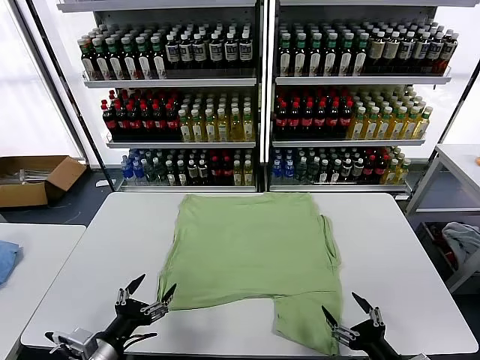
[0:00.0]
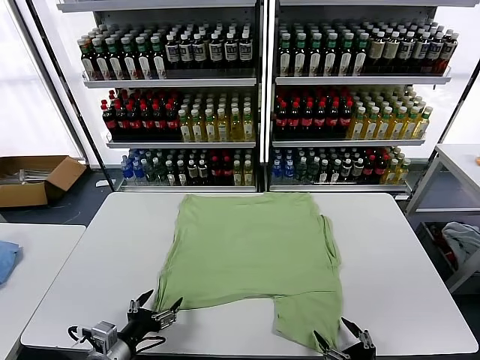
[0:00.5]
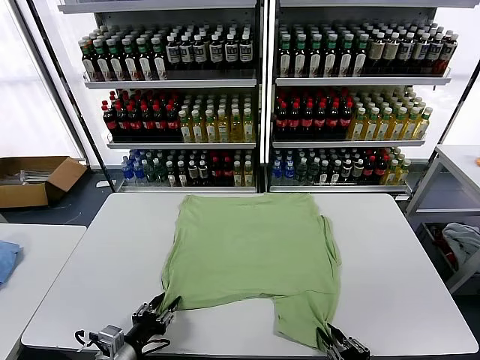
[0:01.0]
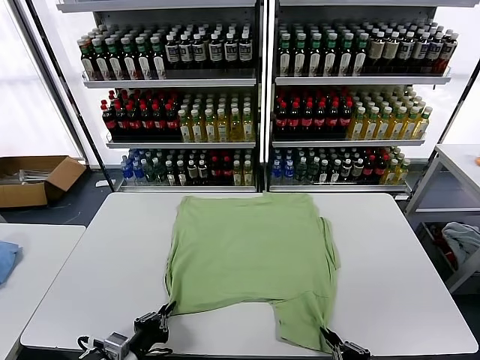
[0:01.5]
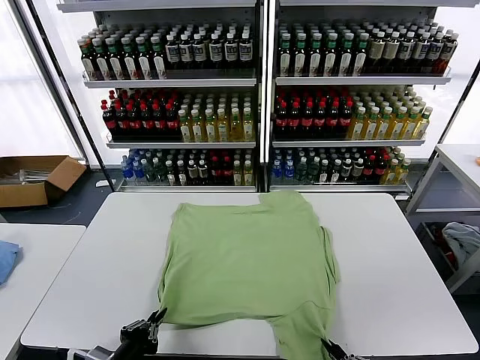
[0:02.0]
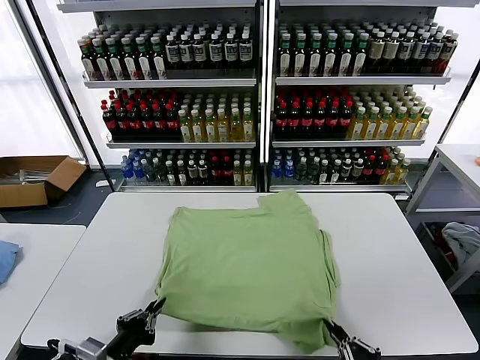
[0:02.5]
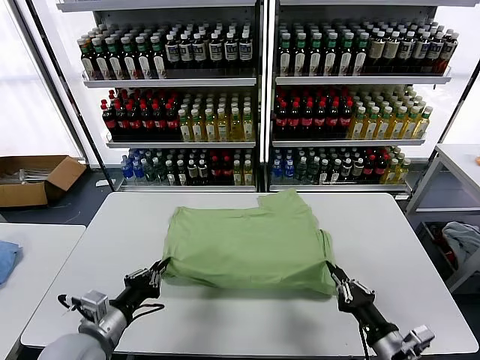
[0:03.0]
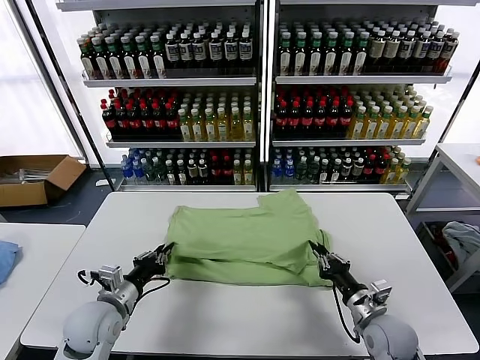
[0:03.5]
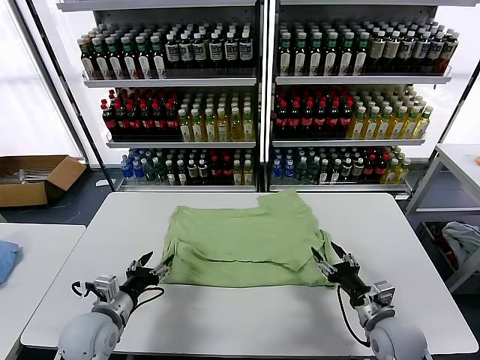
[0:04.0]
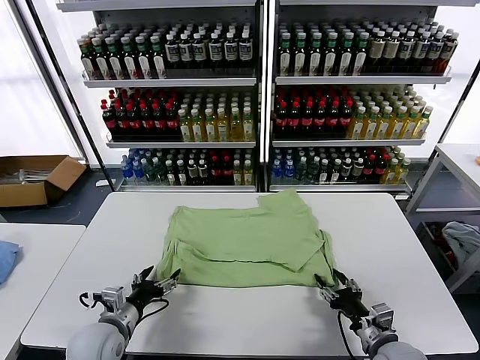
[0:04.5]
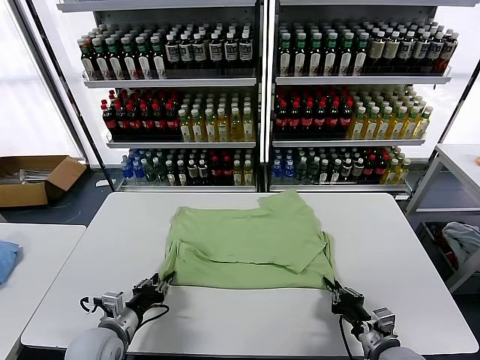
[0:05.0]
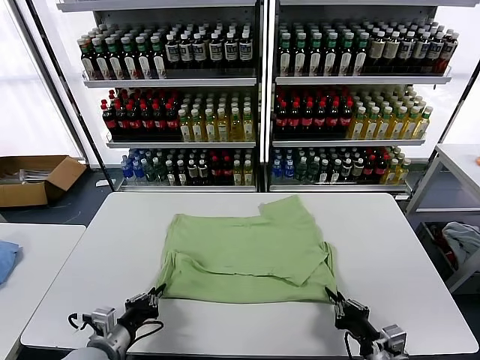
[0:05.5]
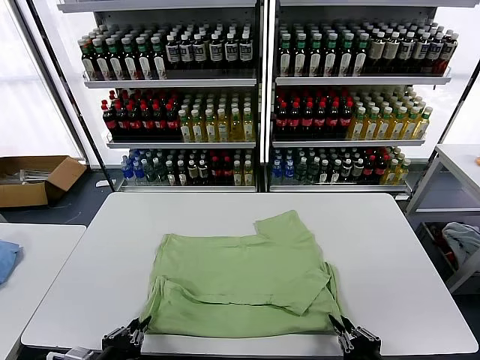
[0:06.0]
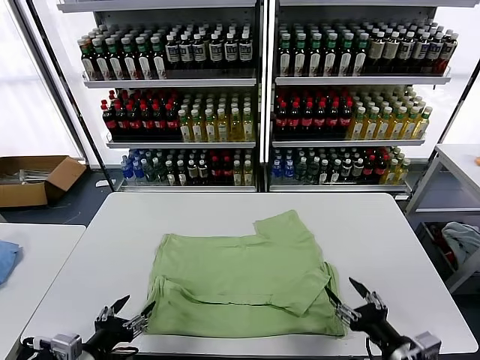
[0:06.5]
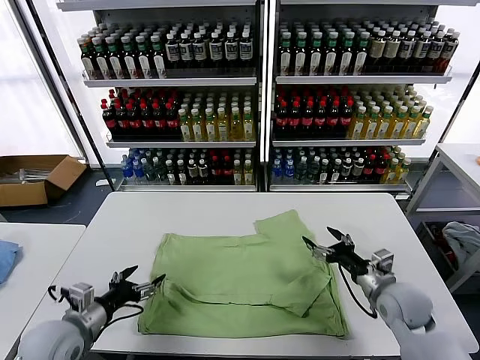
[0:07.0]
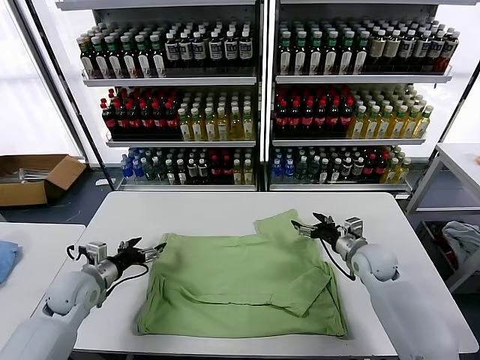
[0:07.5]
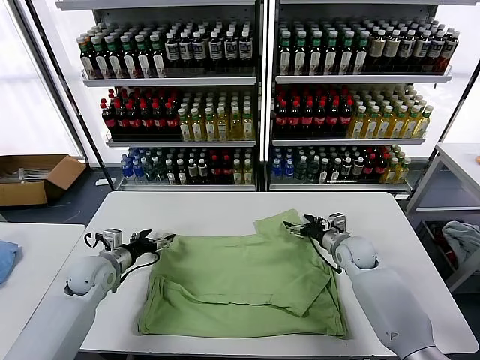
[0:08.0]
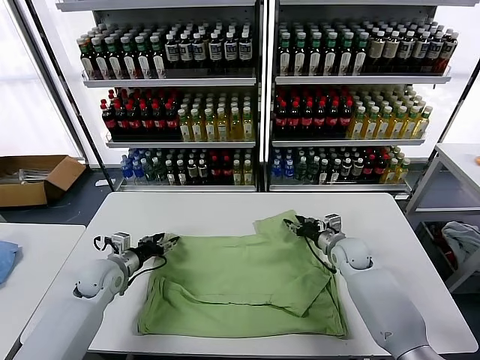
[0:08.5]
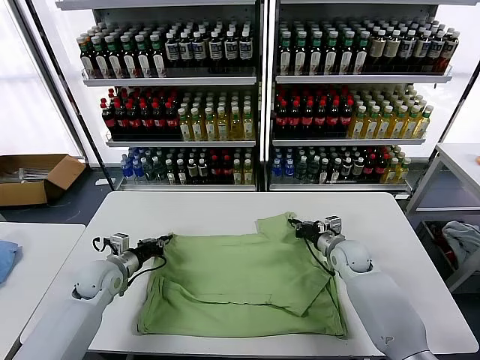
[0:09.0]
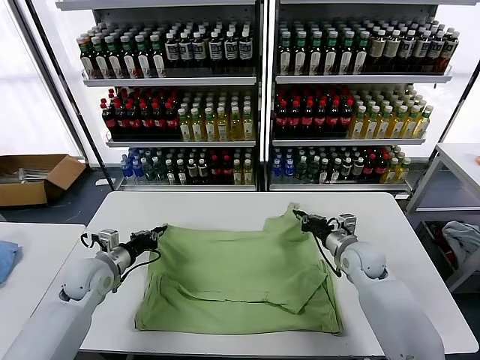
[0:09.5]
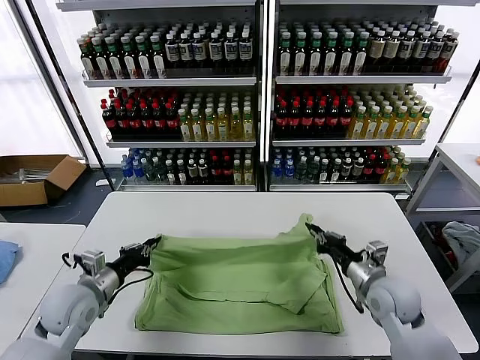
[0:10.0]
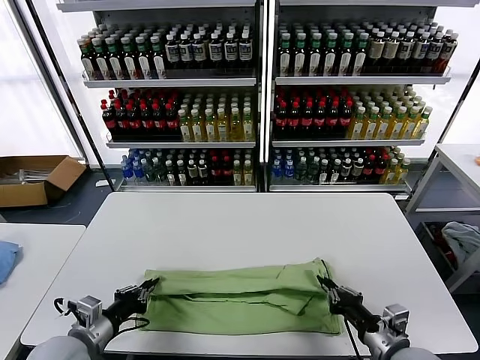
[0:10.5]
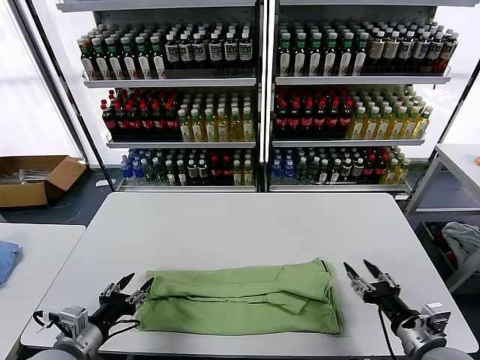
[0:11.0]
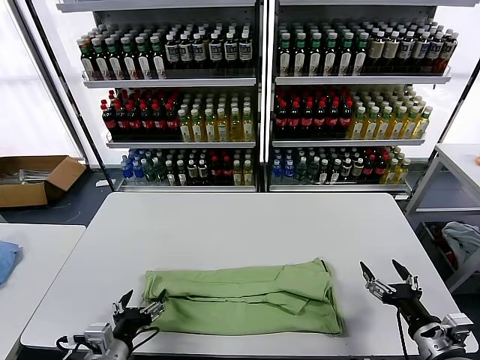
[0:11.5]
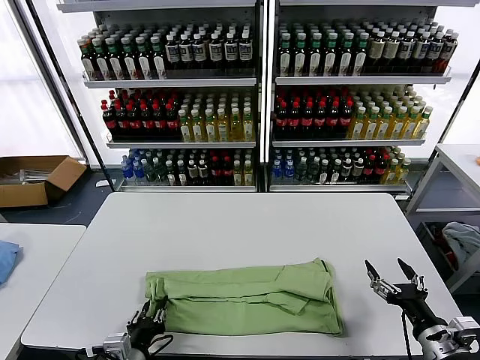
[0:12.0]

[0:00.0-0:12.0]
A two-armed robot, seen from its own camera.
Task of the whole recording: fold and organize the clothes.
Step, 0:00.0 to 0:01.0: use both grippers simultaneously to clamp the lower edge of the clothing fabric.
Step, 0:01.5 to 0:04.0: use both grippers to drag the lower edge of the fabric forward and fold it over the upper edge.
Step, 0:04.5 to 0:06.0: Drag the clothes downward with both gripper.
Step, 0:06.5 to 0:09.0: use both grippers simultaneously to clamp the upper edge of the clothing fabric.
Step, 0:09.5 to 0:10.5: use both grippers to drag the upper edge of the fabric backward and fold it over the lower edge.
0:02.0 to 0:04.0: The two grippers go roughly 20 cm forward. The right gripper opens. Meanwhile the left gripper opens up.
0:04.0 to 0:06.0: The two grippers go about 15 cm backward. The left gripper closes. The right gripper closes.
0:06.0 to 0:08.0: Both grippers travel together forward, approximately 35 cm. The left gripper opens up, while the right gripper opens its fingers.
0:08.0 to 0:10.0: The left gripper heads backward, covering roughly 10 cm, and closes, while the right gripper goes some 15 cm backward, and closes up.
0:10.0 to 0:12.0: The right gripper is displaced backward and to the right by about 15 cm, and opens up. Meanwhile the left gripper moves backward, to the right and downward, some 20 cm, and opens up.

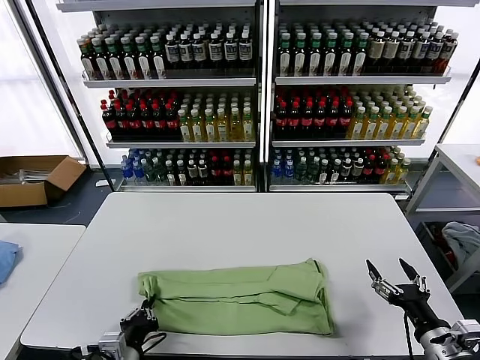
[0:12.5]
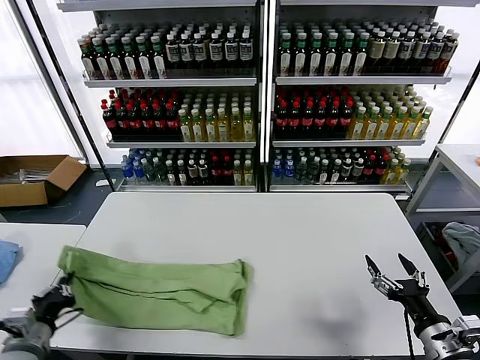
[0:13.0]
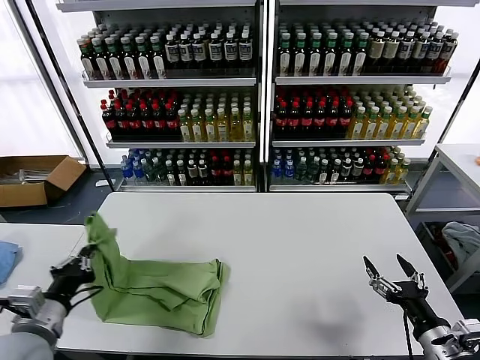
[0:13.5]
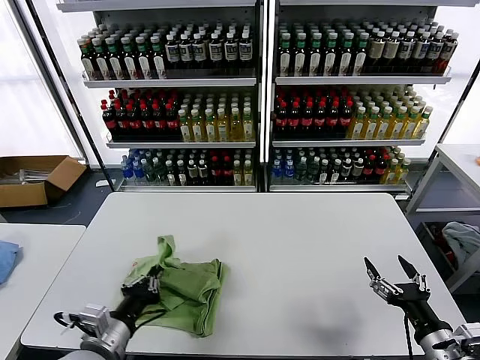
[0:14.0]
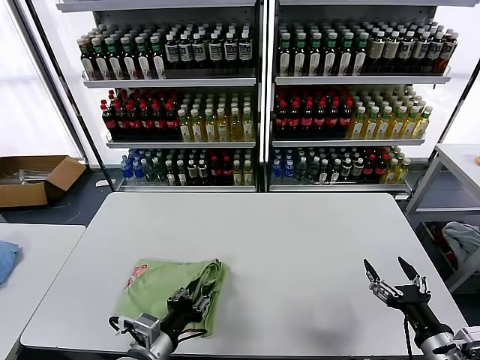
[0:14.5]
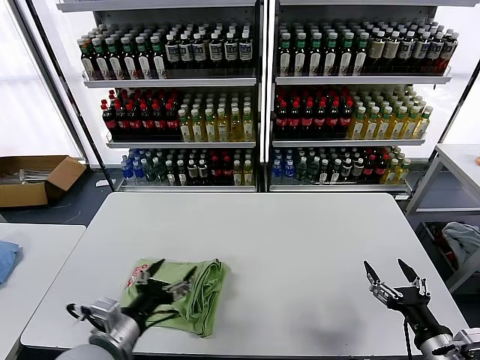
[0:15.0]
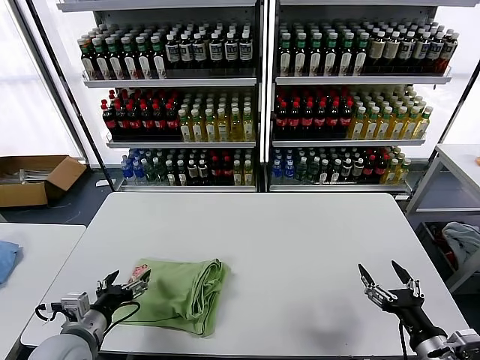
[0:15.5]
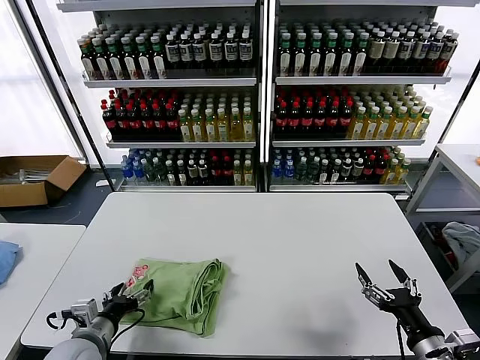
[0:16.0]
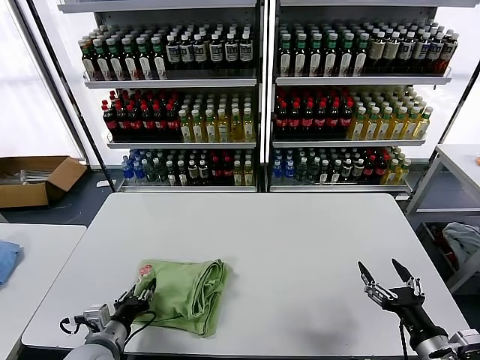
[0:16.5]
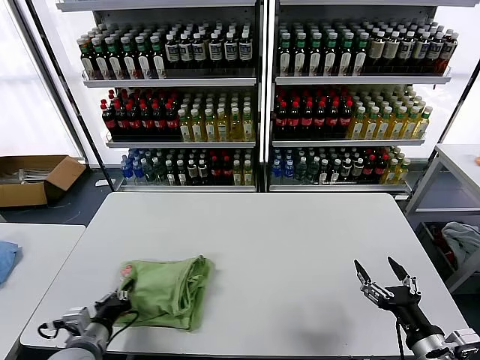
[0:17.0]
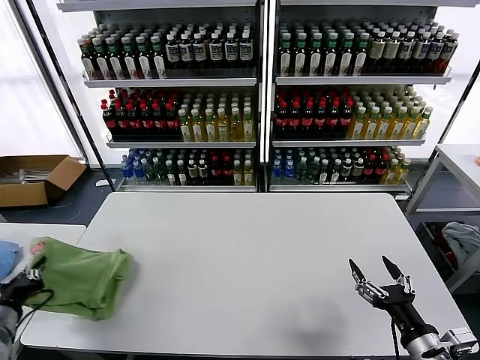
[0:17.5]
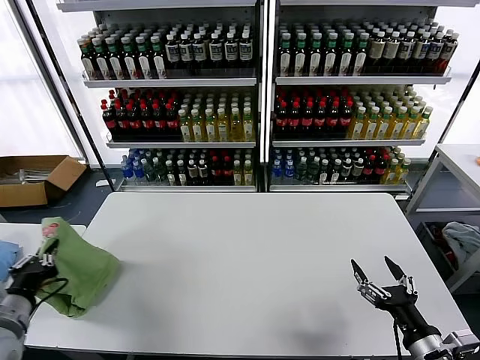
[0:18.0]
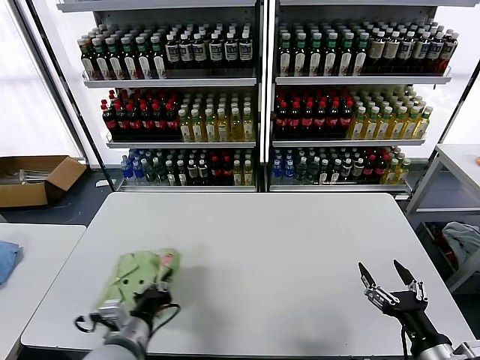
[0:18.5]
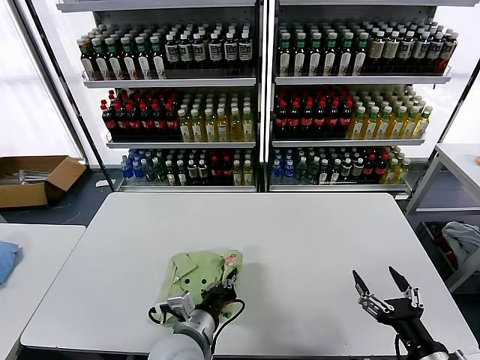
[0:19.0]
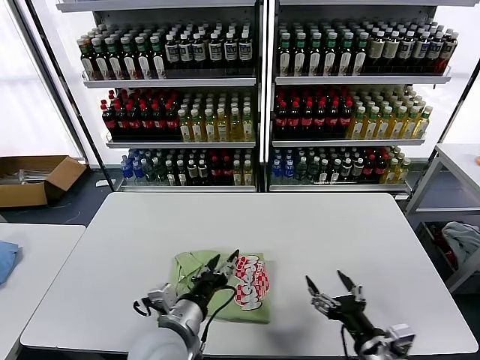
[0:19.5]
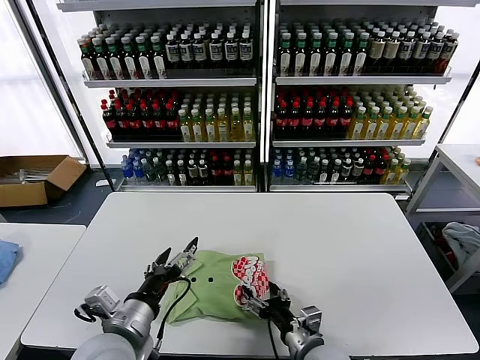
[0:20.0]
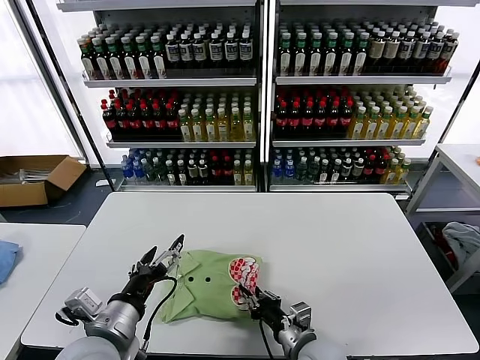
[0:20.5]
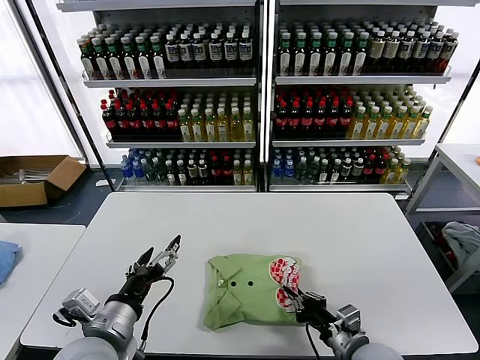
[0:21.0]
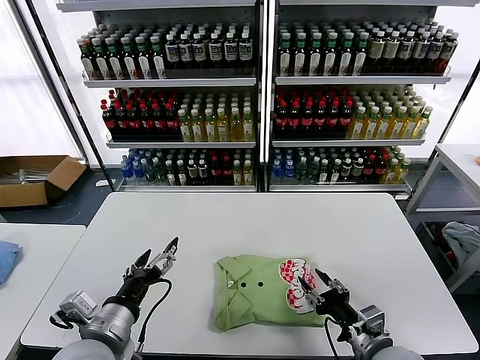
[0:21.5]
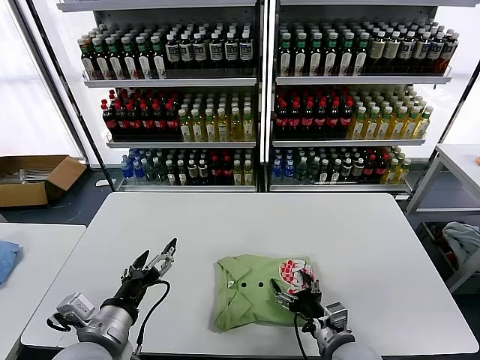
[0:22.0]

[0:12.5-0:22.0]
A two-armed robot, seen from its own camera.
Task of the whole recording: fold and organize the clothes.
Step, 0:12.5 to 0:14.5: use the left gripper to drag the left edge of the fabric to the left and folds it over the right edge.
Step, 0:15.0 to 0:19.0: Flip the folded clothes over with left gripper.
0:12.5 to 0:14.5: The left gripper travels upward by roughly 5 cm, travels to the left and back again, approximately 15 cm each way, and opens its fingers.
0:14.5 to 0:16.5: The left gripper shifts about 10 cm to the left, and opens and closes again.
0:16.5 to 0:18.0: The left gripper goes some 15 cm upward and to the left, and closes its fingers.
0:18.0 to 0:20.0: The right gripper goes about 20 cm to the left, downward and forward. The left gripper is displaced to the right by approximately 20 cm, and opens.
0:20.0 to 0:22.0: The right gripper closes, then reopens.

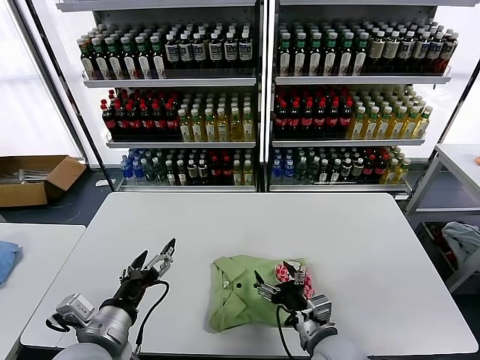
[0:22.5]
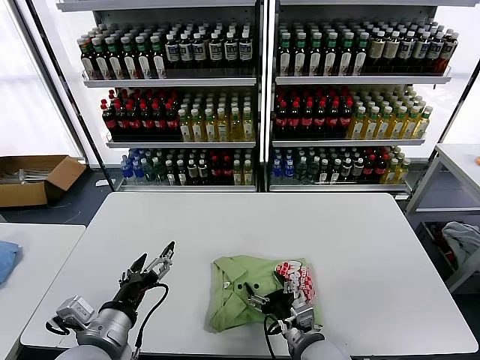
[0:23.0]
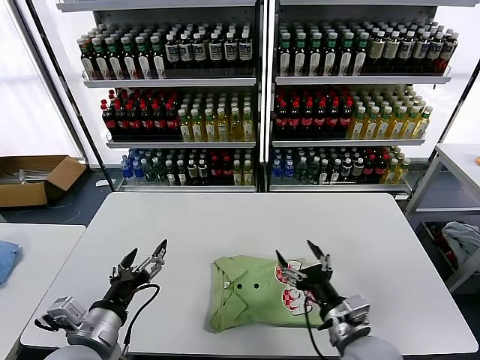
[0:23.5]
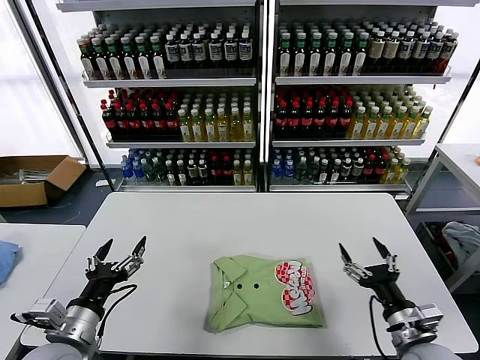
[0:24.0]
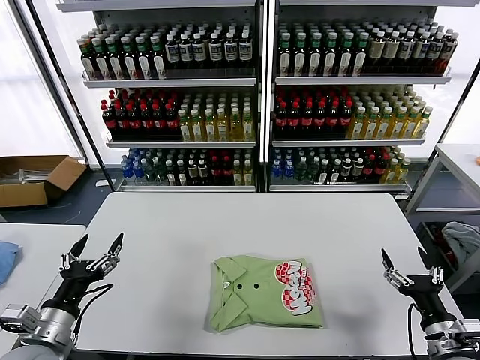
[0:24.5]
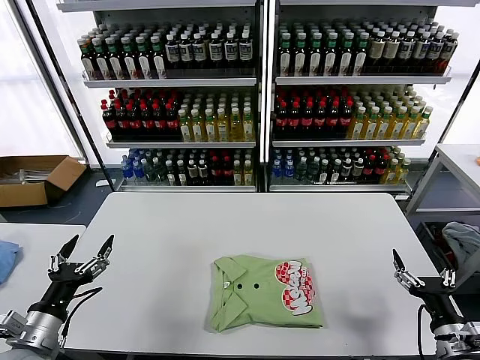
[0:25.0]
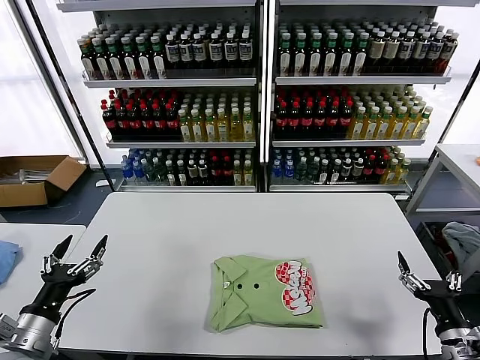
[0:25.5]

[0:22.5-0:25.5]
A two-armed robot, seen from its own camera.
Task of the whole recording: fold and organize the clothes.
0:22.5 to 0:24.0: The right gripper is displaced to the right by roughly 15 cm; the left gripper travels to the left by some 5 cm.
0:24.0 to 0:25.5: The left gripper shifts approximately 10 cm to the left; the right gripper heads to the right, covering approximately 10 cm.
